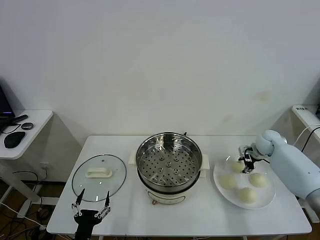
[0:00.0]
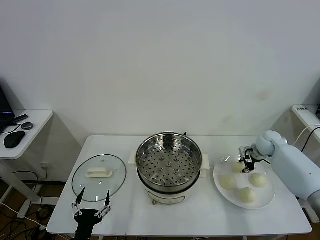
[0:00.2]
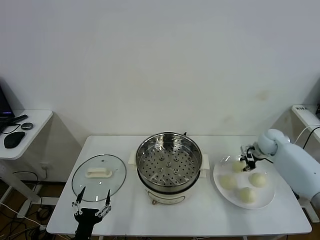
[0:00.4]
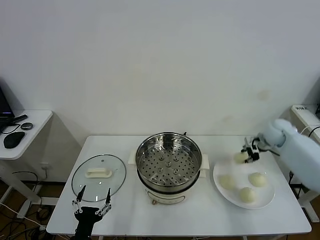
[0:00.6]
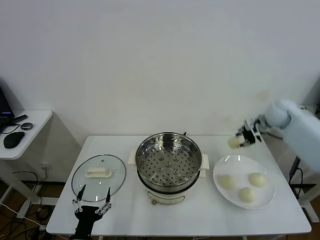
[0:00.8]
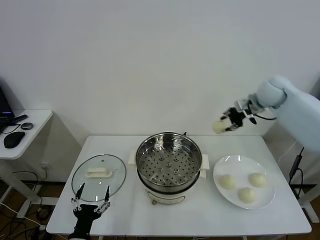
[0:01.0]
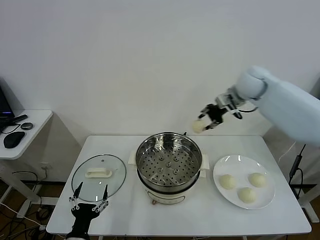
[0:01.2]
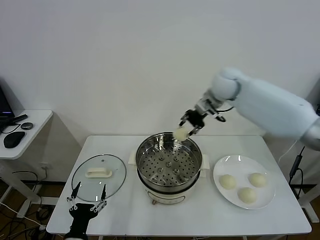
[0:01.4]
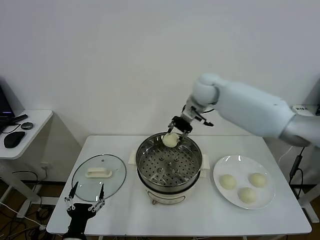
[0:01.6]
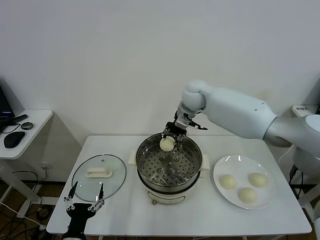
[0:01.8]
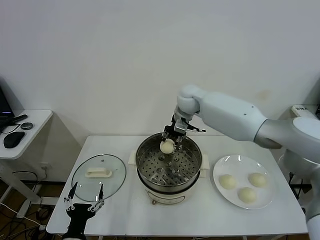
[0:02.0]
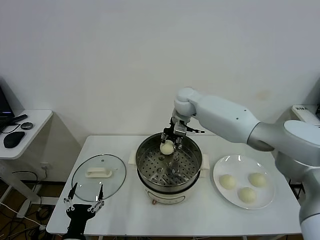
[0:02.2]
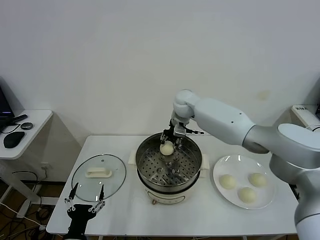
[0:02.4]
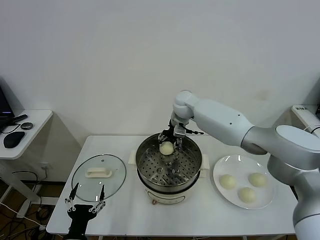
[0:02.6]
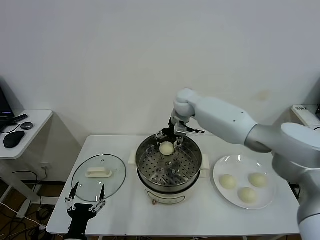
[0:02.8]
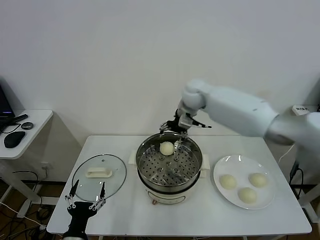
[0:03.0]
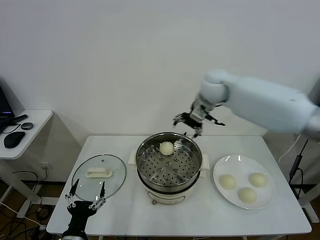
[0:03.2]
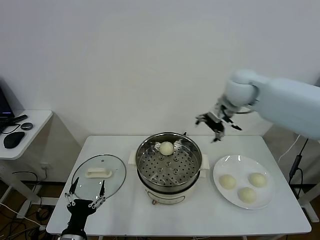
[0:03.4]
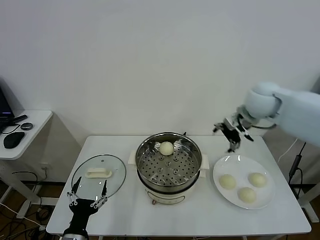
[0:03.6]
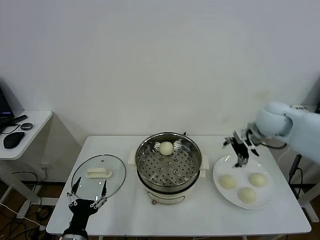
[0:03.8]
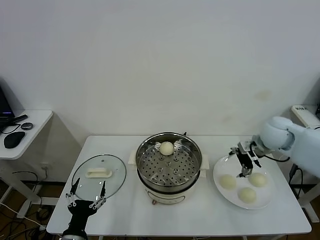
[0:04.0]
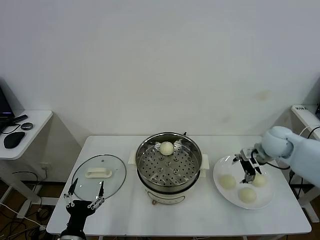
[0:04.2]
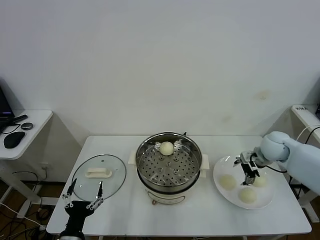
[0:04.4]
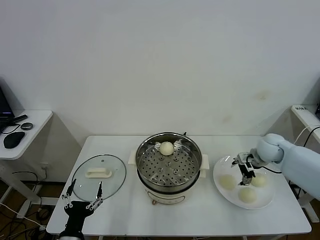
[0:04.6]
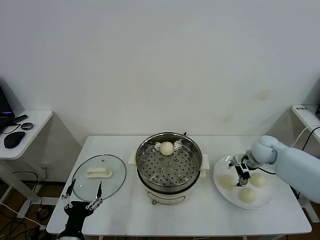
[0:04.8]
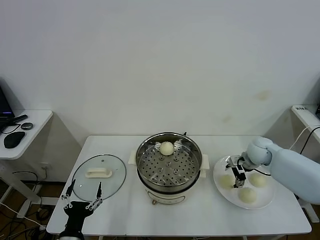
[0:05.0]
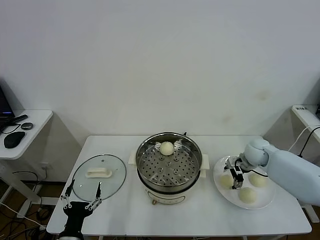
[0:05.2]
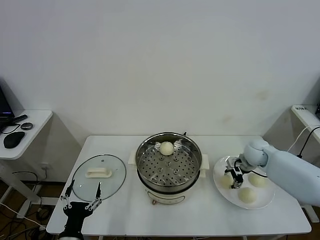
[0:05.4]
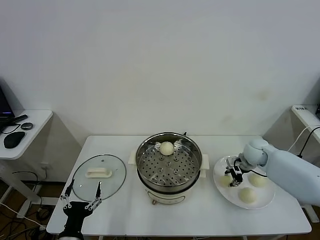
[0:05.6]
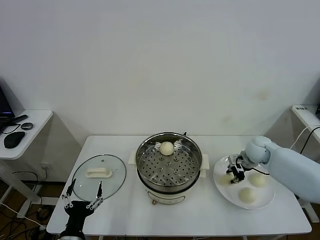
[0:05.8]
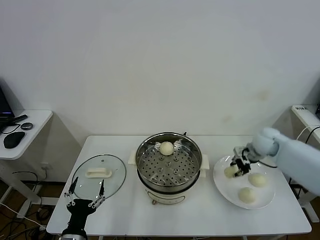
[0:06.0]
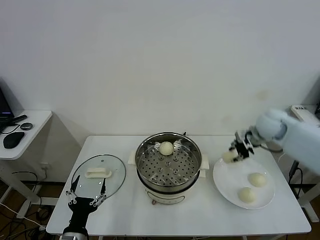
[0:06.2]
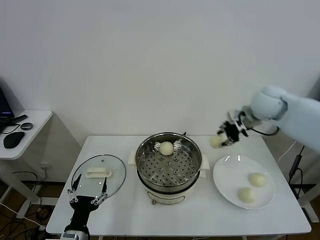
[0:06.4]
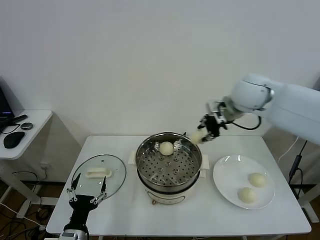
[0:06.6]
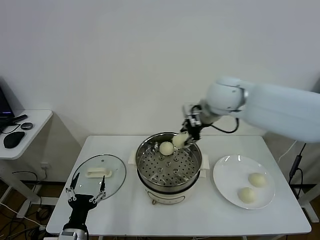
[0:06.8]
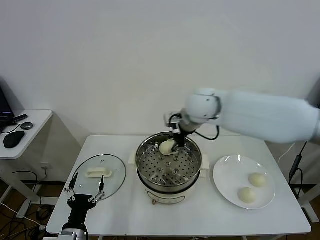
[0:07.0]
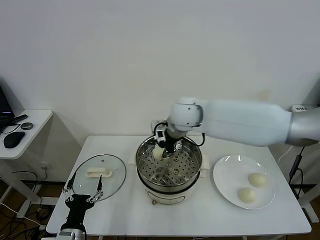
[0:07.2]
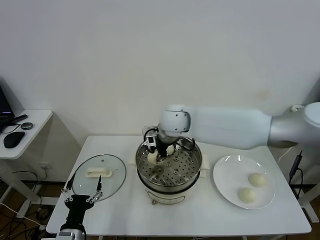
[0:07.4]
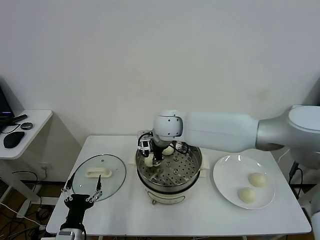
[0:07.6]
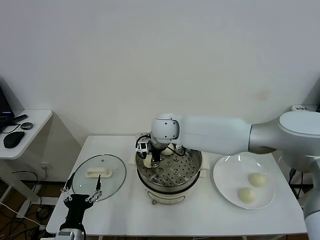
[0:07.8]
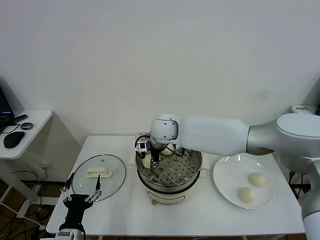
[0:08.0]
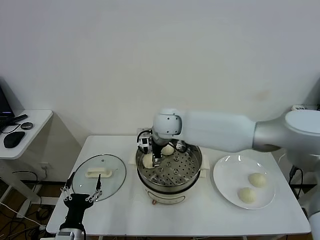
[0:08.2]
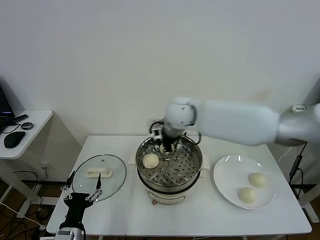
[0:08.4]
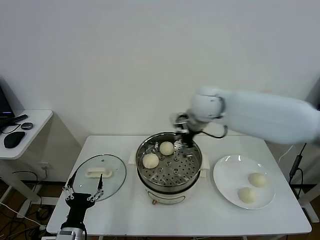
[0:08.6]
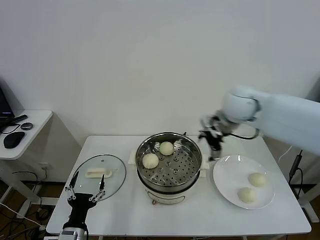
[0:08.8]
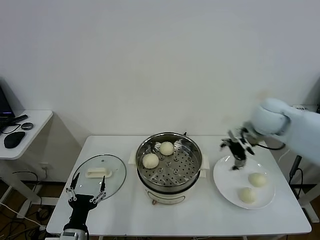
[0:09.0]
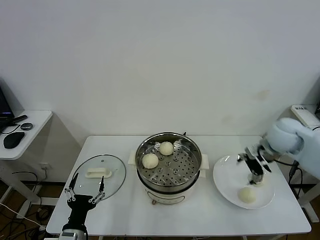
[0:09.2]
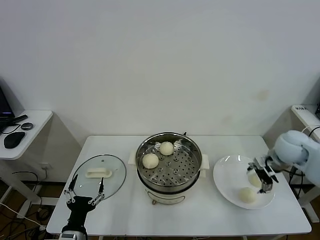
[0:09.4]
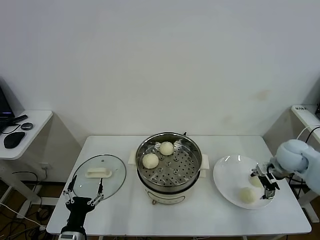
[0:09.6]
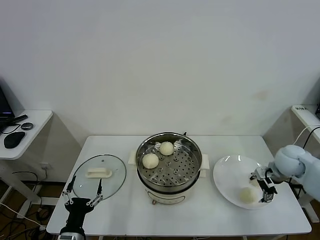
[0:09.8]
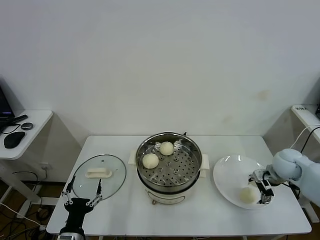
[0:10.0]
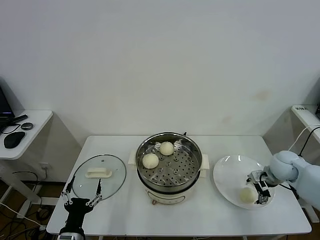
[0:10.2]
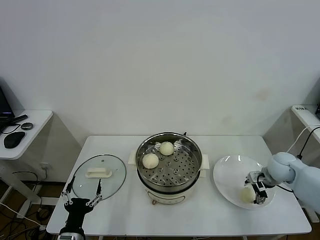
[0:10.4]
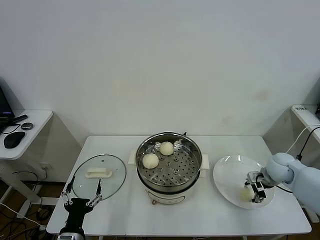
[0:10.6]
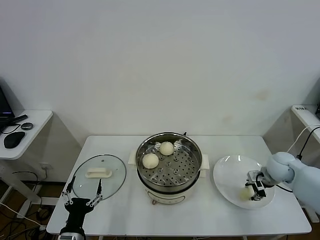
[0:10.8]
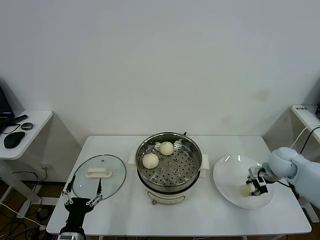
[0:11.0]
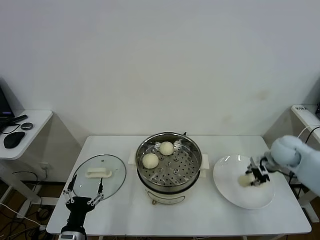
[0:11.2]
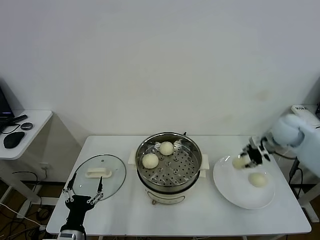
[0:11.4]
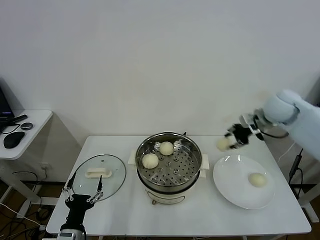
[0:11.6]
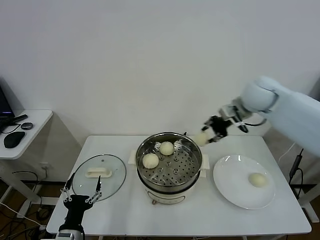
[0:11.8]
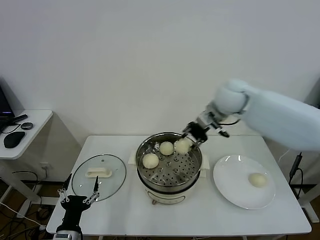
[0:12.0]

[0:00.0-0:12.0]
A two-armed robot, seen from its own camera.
Task of the whole recording: take steamed baozi put them in steamer.
Step, 0:00.0 to 0:02.8: Place the baozi on the steamer with right gripper.
Step, 0:03.0 to 0:05.6: Grasp the baozi in the plate with right gripper.
Step, 0:05.8 to 0:08.0: Place the baozi on the steamer with right gripper.
Step, 0:08.4 to 0:10.6: Grasp the baozi in the plate with right gripper.
0:00.0 to 0:01.6: The right gripper goes roughly 35 cm to the left and upward.
0:01.6 to 0:03.0: The right gripper travels downward and back again, some 10 cm each way, and opens.
0:03.0 to 0:04.4: The right gripper shifts about 35 cm to the right, downward and backward.
0:04.4 to 0:06.0: The right gripper closes.
0:06.0 to 0:07.6: The right gripper shifts some 35 cm to the left.
0:07.6 to 0:09.0: The right gripper travels to the right by about 30 cm, and opens up.
0:09.0 to 0:10.4: The right gripper moves downward and to the right, roughly 20 cm.
0:10.4 to 0:12.0: The right gripper heads upward, to the left and forward, covering roughly 35 cm, and closes up.

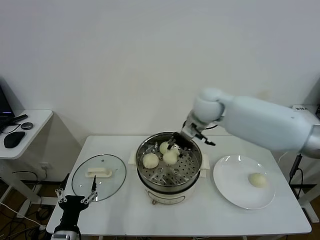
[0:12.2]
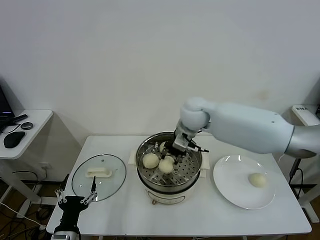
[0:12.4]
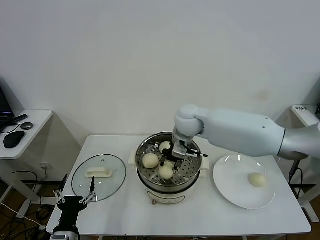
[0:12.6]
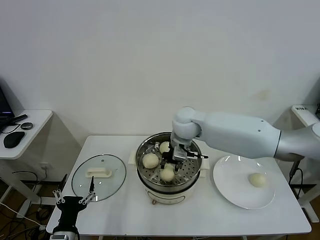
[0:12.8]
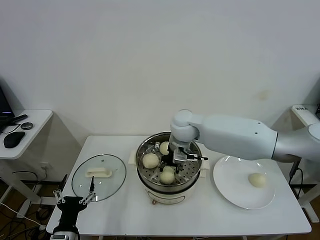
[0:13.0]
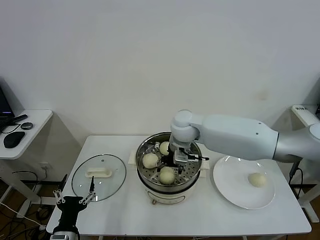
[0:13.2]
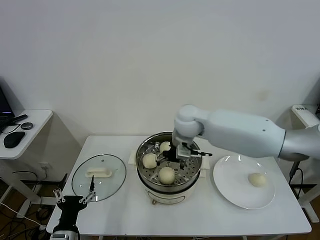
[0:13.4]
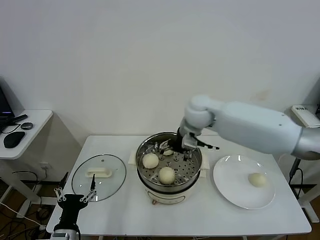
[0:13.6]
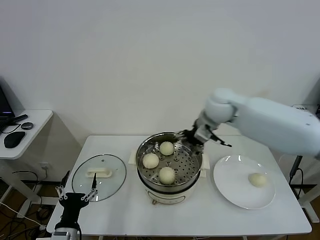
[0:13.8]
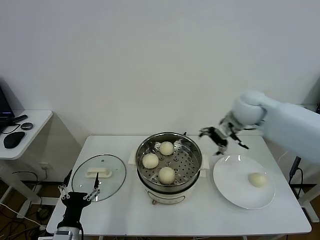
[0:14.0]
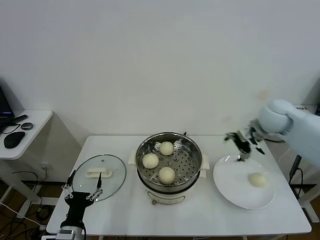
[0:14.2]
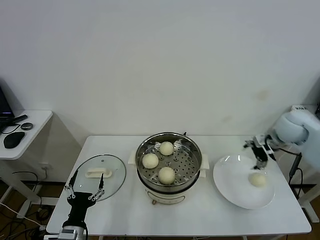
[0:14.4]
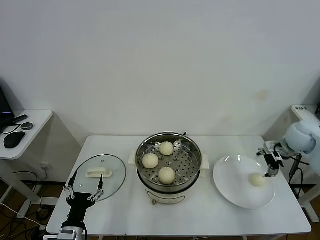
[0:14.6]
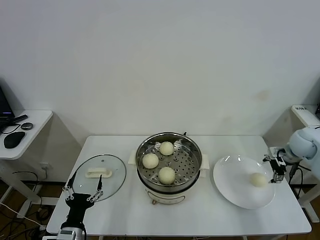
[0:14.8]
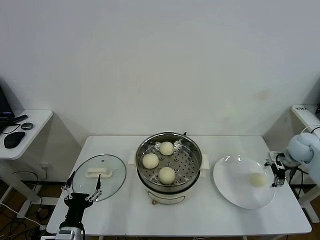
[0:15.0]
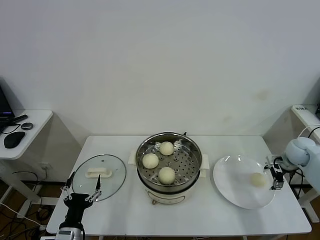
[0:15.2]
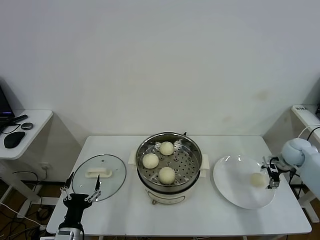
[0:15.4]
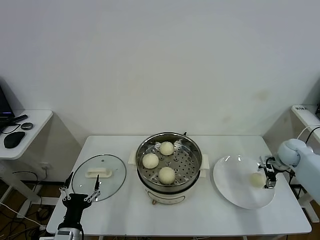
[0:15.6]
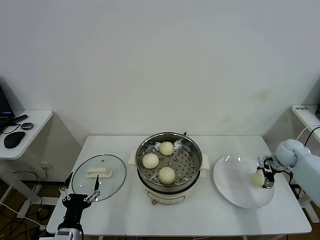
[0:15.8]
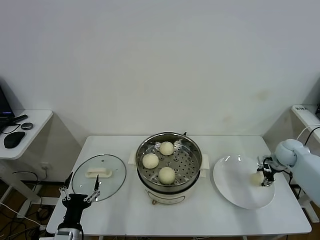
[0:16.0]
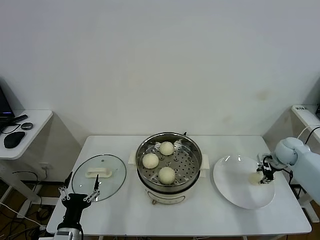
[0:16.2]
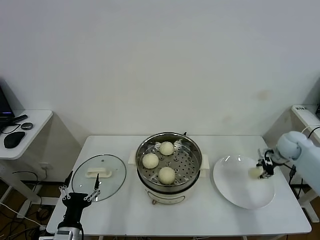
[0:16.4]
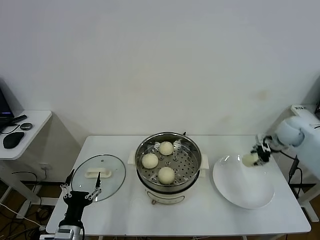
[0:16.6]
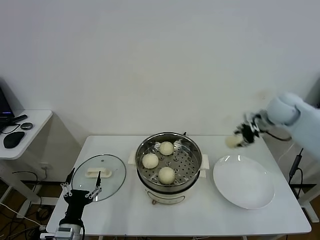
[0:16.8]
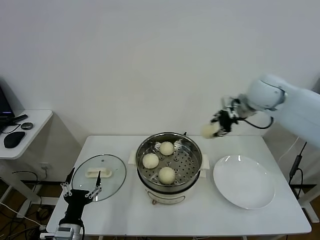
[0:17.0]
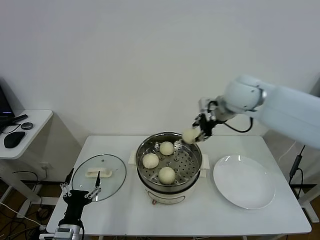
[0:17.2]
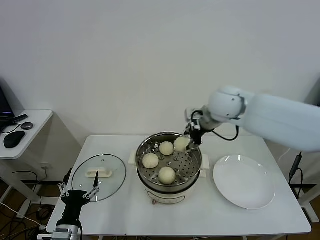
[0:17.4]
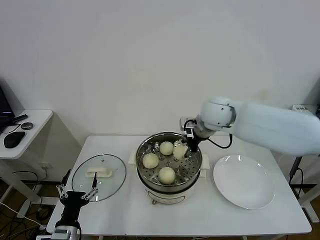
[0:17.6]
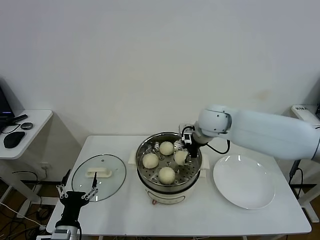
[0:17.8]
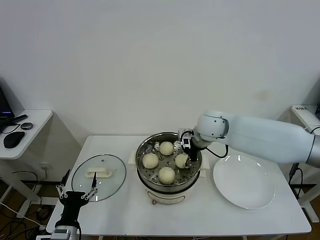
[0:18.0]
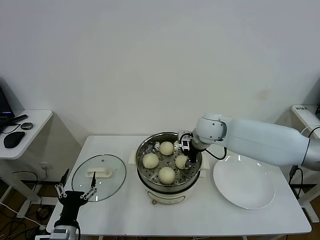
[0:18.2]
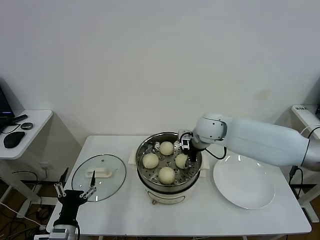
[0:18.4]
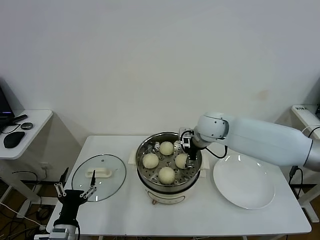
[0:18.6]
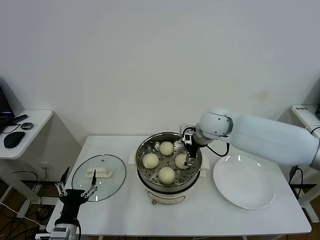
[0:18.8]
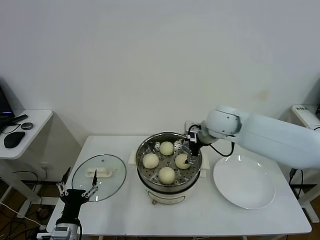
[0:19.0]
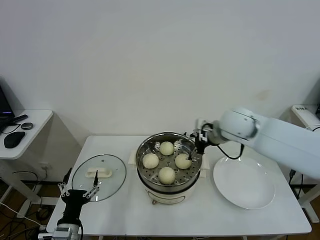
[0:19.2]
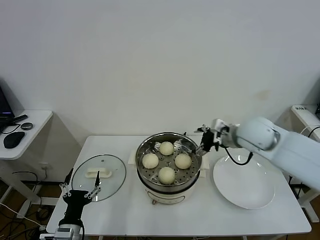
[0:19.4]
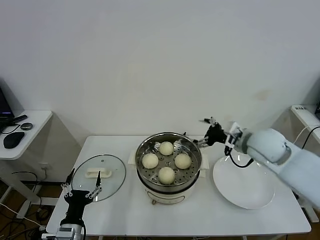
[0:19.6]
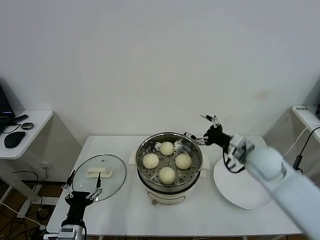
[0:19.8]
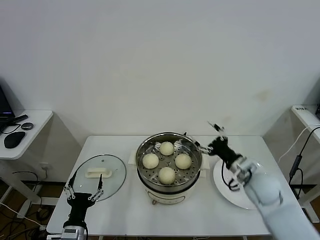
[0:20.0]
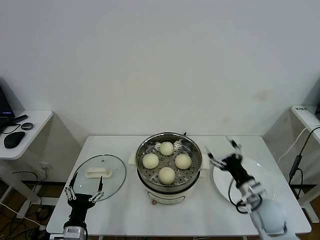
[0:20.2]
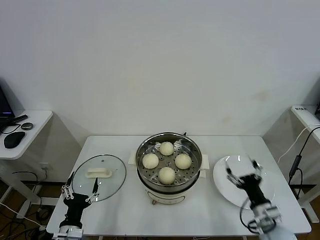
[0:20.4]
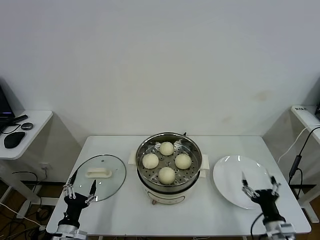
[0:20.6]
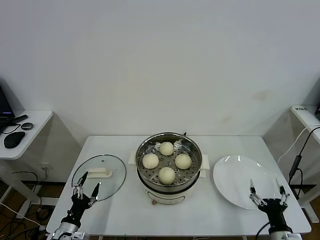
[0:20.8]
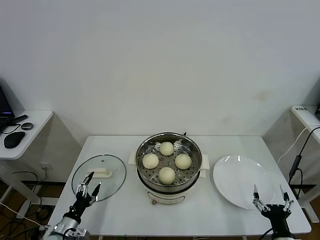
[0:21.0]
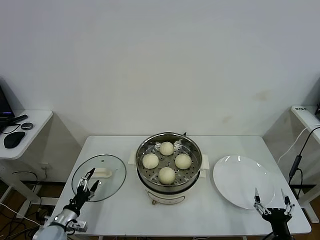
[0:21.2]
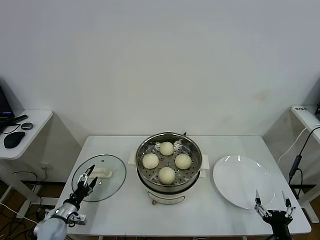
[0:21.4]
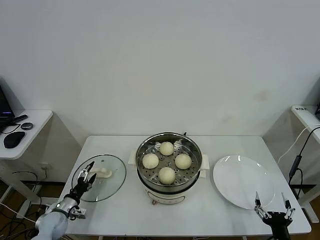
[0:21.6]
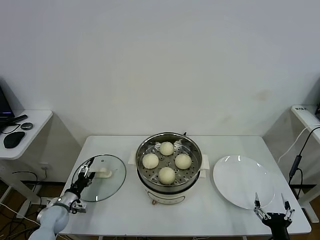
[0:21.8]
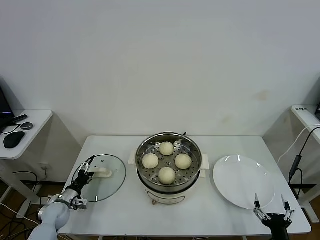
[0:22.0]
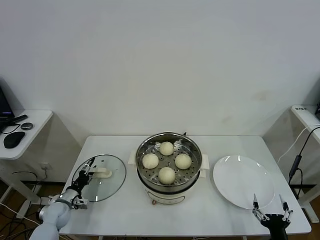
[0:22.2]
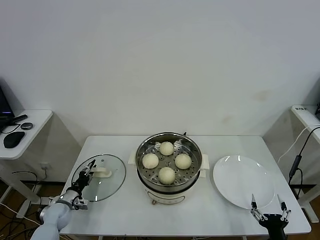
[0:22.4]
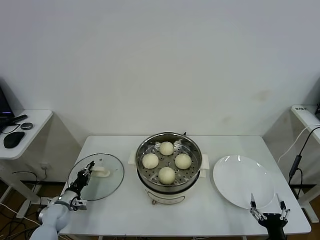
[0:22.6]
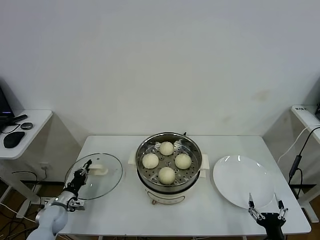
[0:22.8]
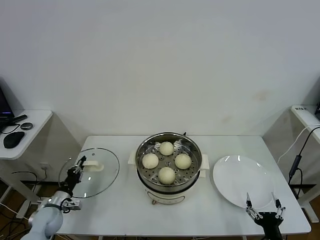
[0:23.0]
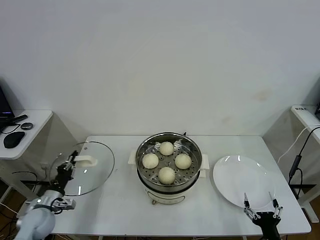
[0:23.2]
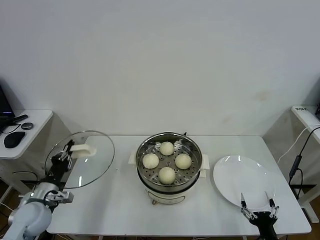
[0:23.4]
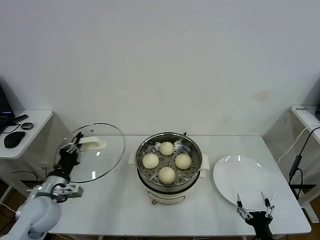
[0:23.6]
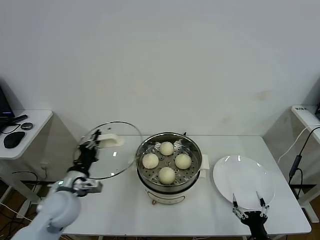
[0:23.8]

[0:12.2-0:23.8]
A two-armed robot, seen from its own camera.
Task of the whole recording: take steamed baozi put them in steamer.
Step, 0:13.6 to 0:16.0: Grasp the baozi in the plate with right gripper.
Step, 0:16.4 to 0:18.6: Place the baozi on the steamer with right gripper.
Step, 0:19.0 to 0:22.8: Grasp the pot lid with left gripper.
0:12.2 to 0:13.6: The right gripper opens its fingers.
0:13.6 to 0:15.0: The right gripper goes some 40 cm to the right.
0:15.0 to 0:16.6: The right gripper ends up about 5 cm from where it was, and closes up.
0:16.6 to 0:18.0: The right gripper shifts some 30 cm to the left.
0:18.0 to 0:19.4: The right gripper heads to the right and backward, covering some 10 cm, and opens.
0:19.4 to 0:21.0: The left gripper is displaced downward and to the left by approximately 10 cm, while the right gripper goes about 40 cm backward and downward.
0:21.0 to 0:22.4: The left gripper travels forward by approximately 15 cm, and closes.
0:22.4 to 0:23.8: The left gripper shifts some 25 cm upward and to the right, and closes.
